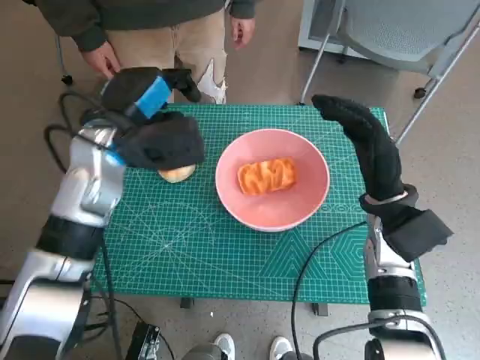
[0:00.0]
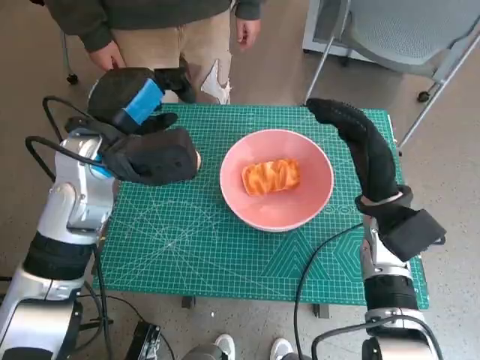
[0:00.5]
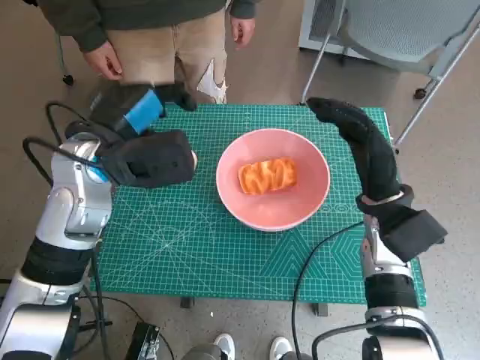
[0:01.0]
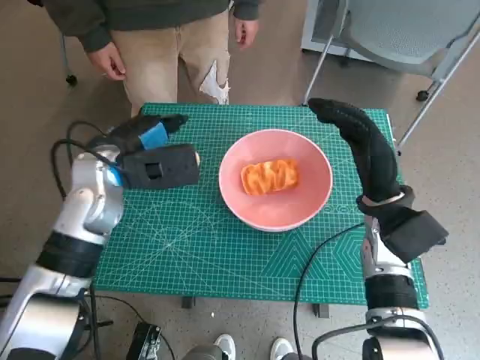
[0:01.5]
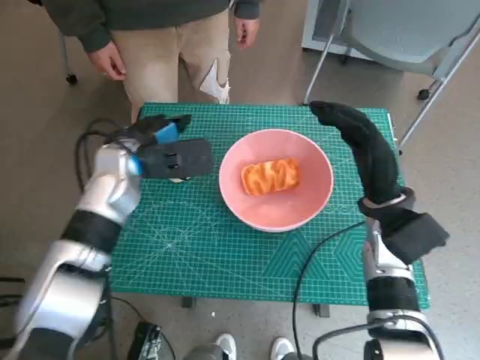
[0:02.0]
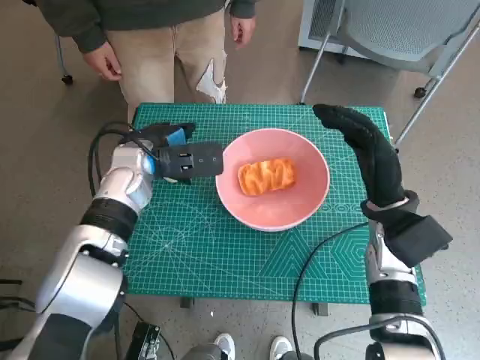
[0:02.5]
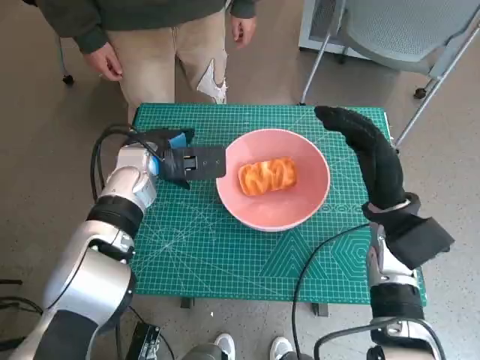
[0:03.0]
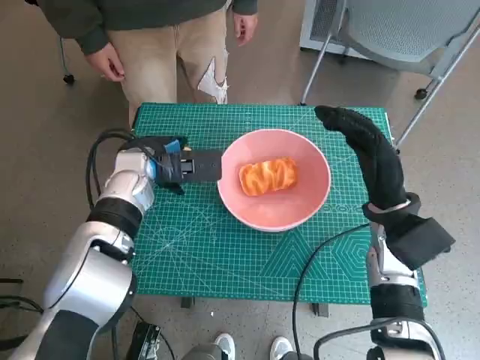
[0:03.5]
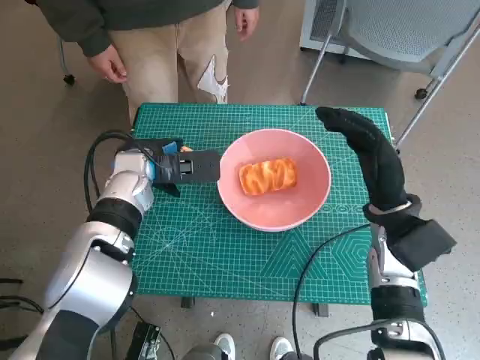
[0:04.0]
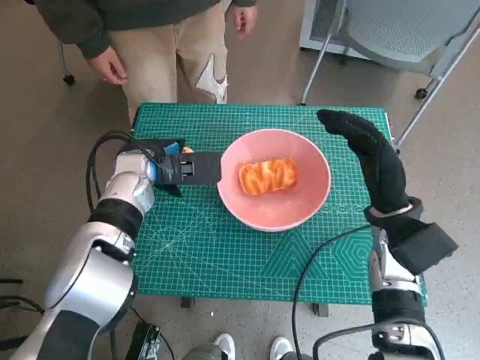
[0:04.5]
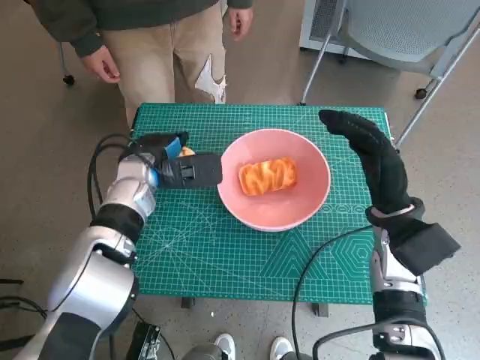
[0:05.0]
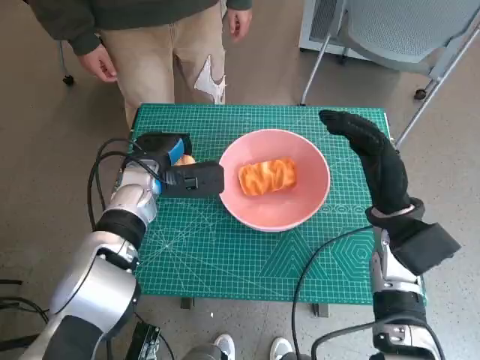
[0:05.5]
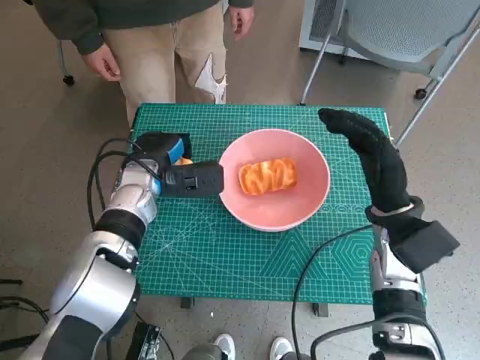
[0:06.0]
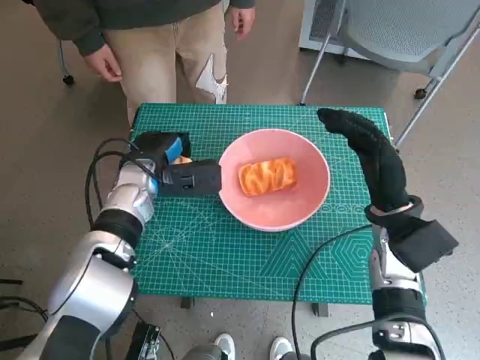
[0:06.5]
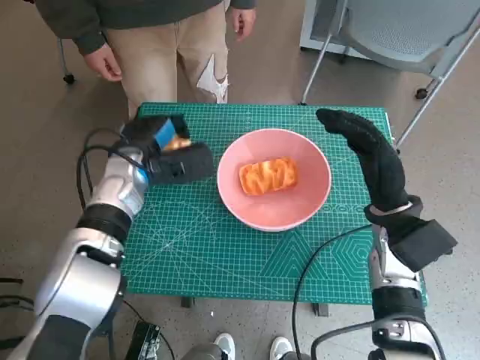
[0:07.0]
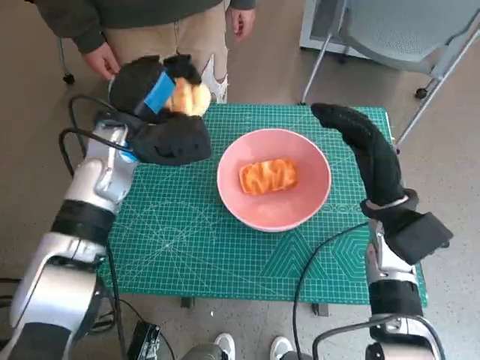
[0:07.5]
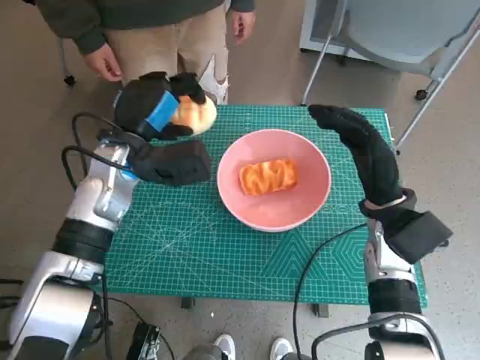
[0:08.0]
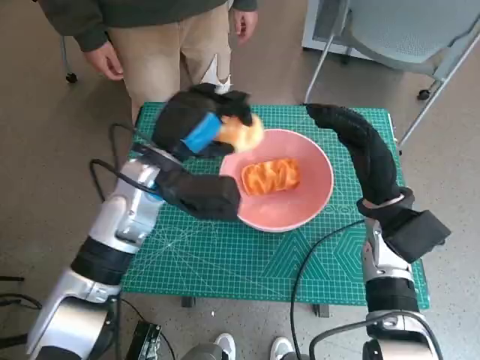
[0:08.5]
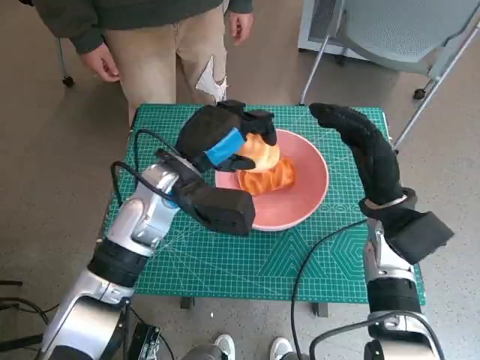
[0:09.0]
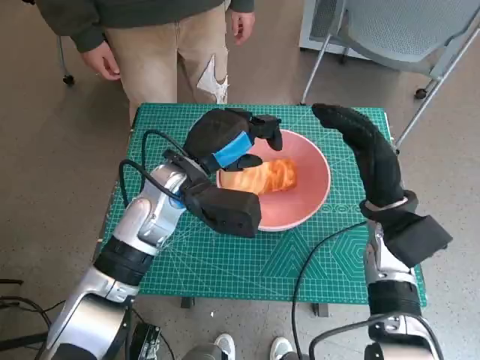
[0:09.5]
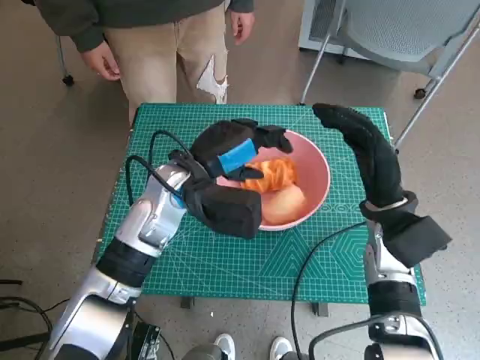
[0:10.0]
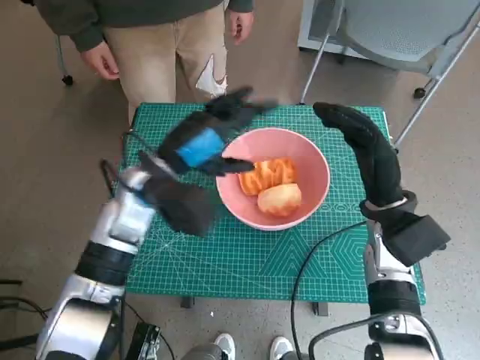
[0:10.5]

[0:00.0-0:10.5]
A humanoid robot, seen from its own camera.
Step, 0:00.0 to 0:05.5: Grasp the round bread with left hand.
Step, 0:06.0 to 0:09.5: Place the round bread in pink bowl with left hand.
0:02.0 to 0:06.5: The hands stay close to where they were, moving slightly.
0:06.5 to 0:08.5: The left hand shifts roughly 5 cm upward.

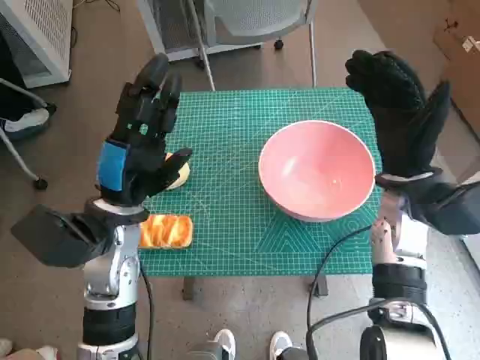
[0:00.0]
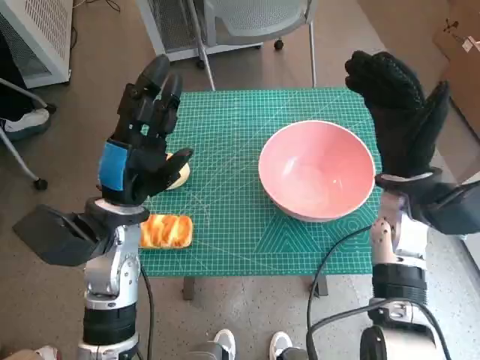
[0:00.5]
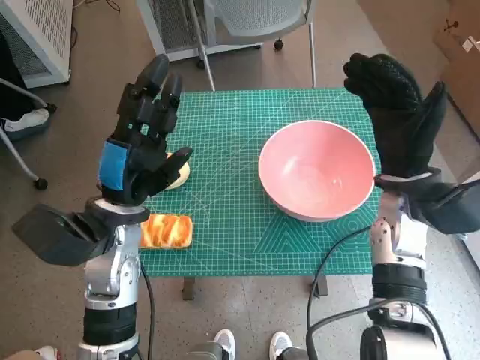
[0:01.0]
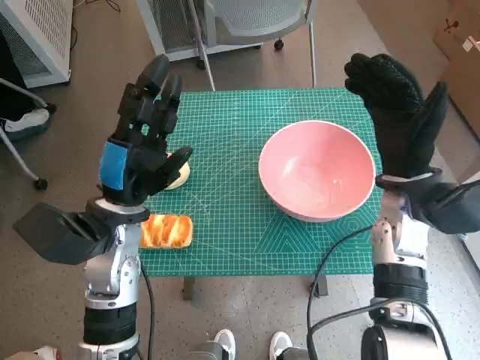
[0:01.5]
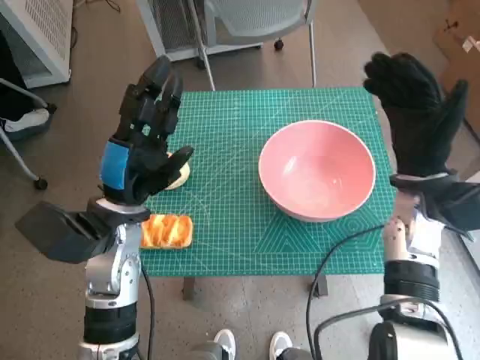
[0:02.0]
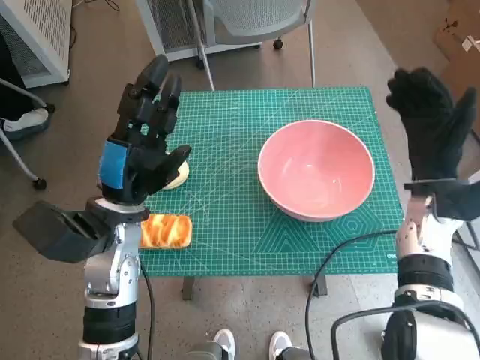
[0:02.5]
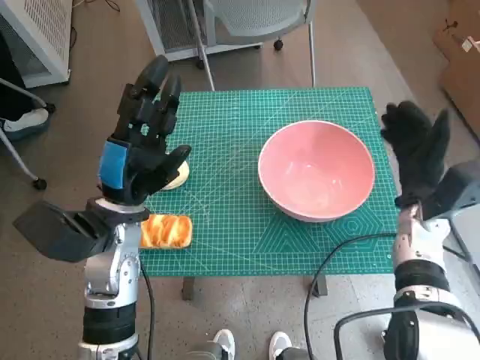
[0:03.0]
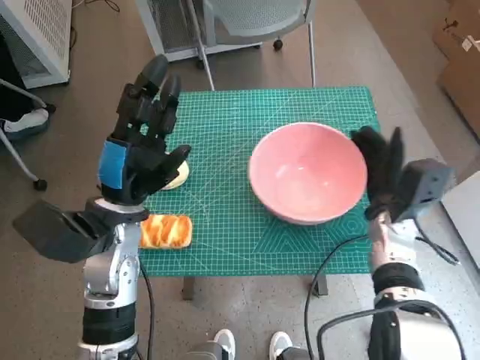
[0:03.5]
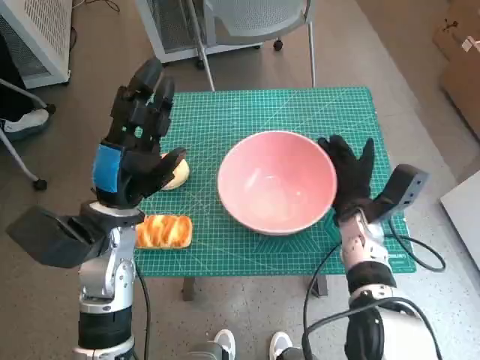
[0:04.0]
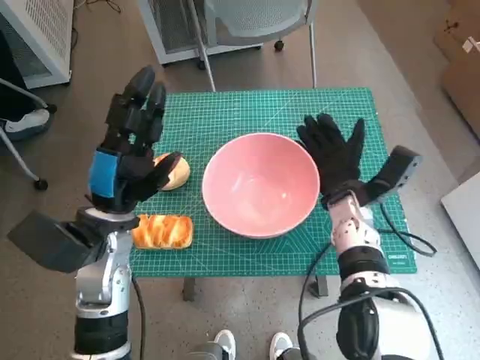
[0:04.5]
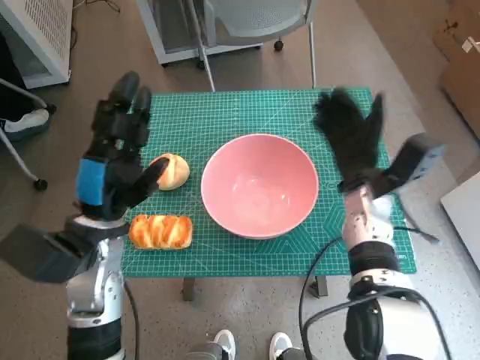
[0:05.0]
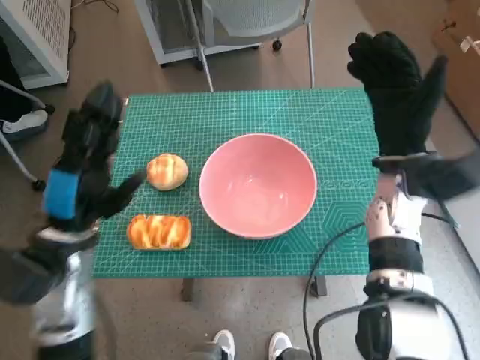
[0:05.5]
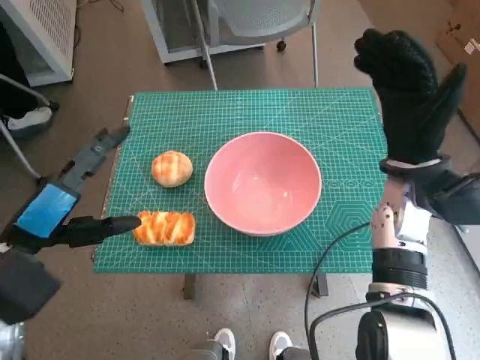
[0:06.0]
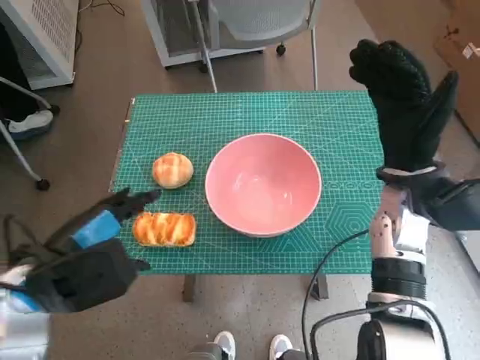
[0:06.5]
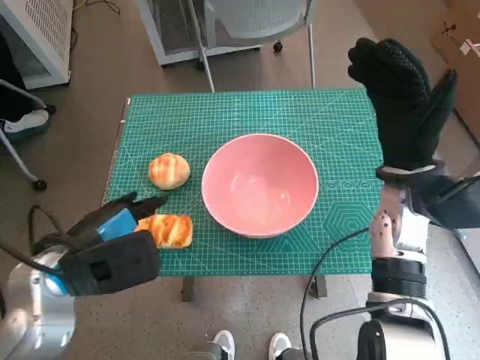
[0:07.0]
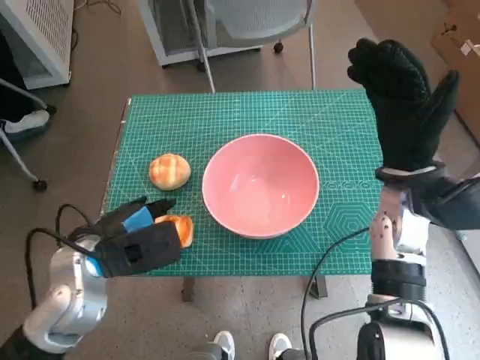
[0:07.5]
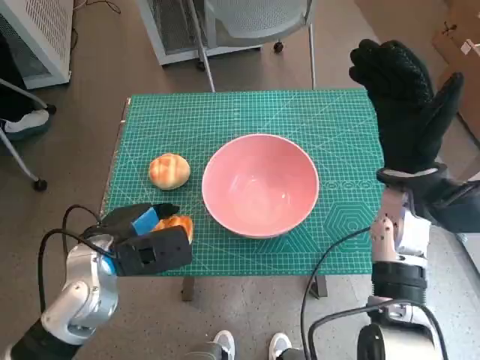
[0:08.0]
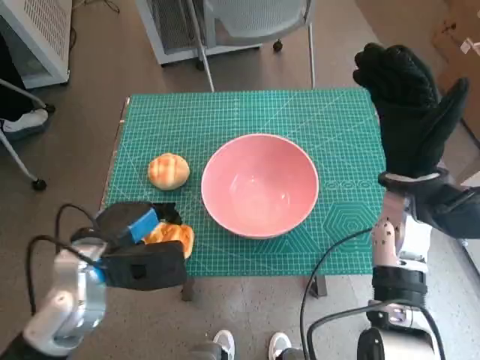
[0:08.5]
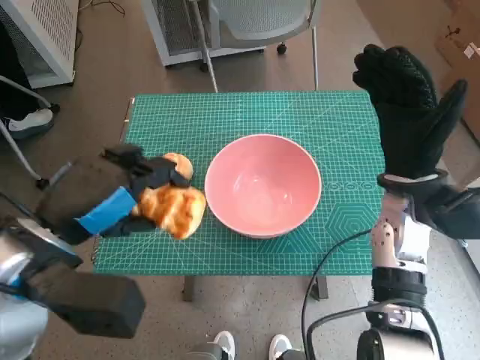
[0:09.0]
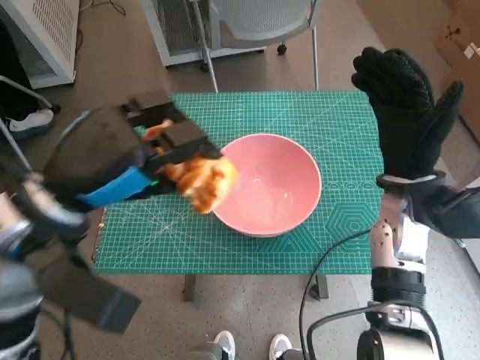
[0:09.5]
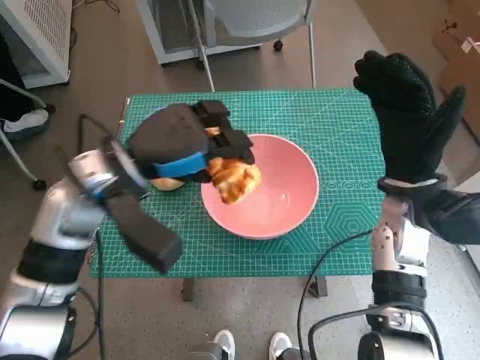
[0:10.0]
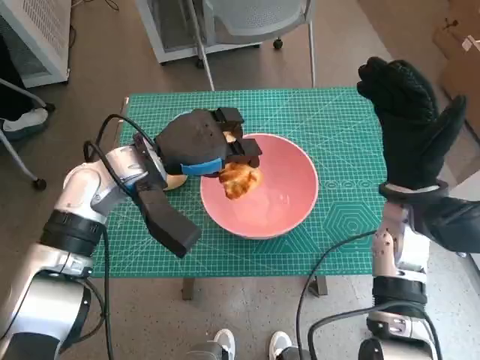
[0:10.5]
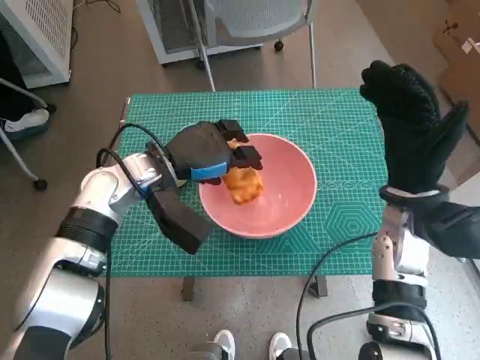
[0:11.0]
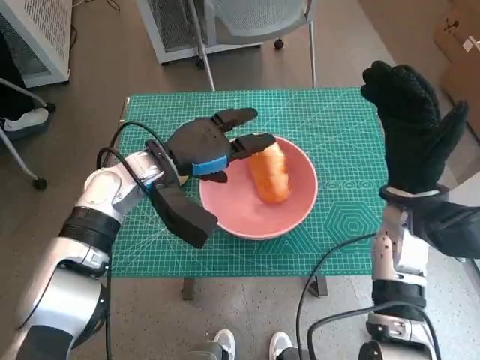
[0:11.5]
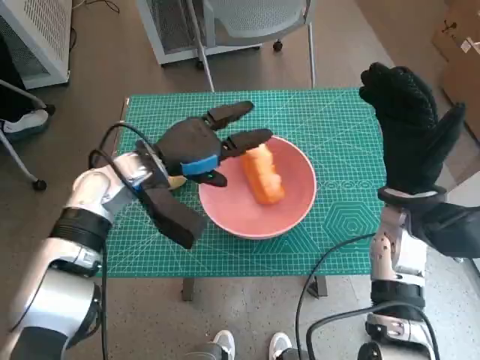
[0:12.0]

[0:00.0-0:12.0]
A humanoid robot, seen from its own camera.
Step, 0:00.0 to 0:04.5: Move the pink bowl to the center of table with right hand.
Step, 0:05.0 to 0:08.0: Grasp the long bread with left hand.
Step, 0:08.5 to 0:11.5: Place the long bread in pink bowl with left hand.
0:02.0 to 0:04.0: The right hand moves downward, roughly 10 cm.
0:04.0 to 0:06.0: The right hand travels upward by approximately 10 cm. Meanwhile the left hand travels backward and to the left by roughly 10 cm.
0:06.0 to 0:08.0: The left hand moves downward and to the right, some 10 cm.
0:08.0 to 0:10.0: The left hand moves upward and forward, approximately 10 cm.
0:10.0 to 0:12.0: The left hand moves downward and forward, some 10 cm.

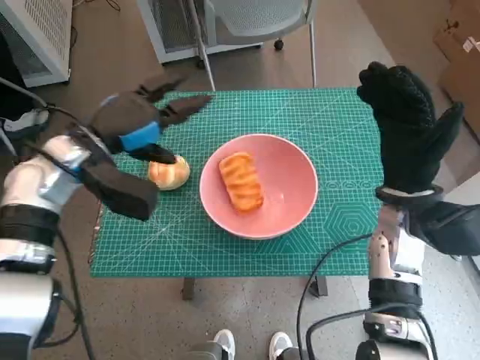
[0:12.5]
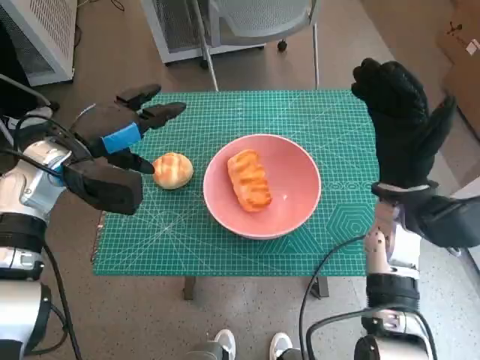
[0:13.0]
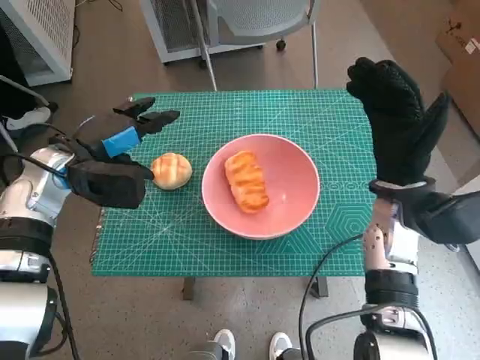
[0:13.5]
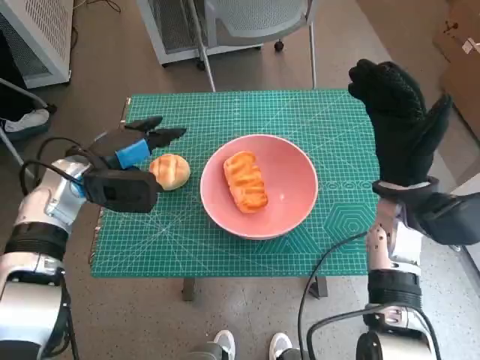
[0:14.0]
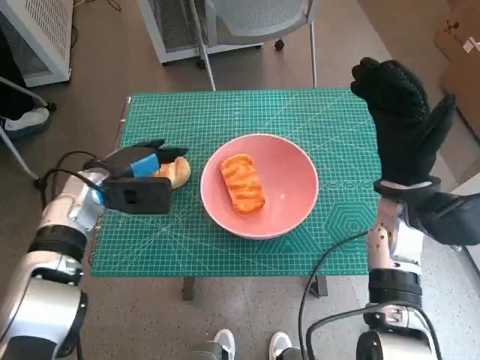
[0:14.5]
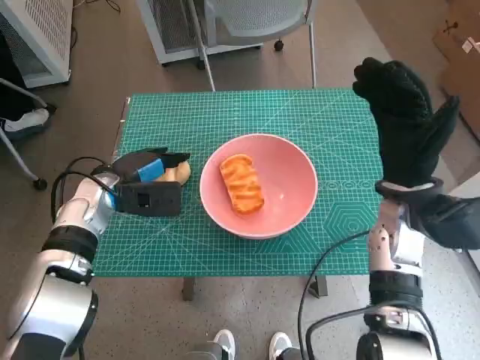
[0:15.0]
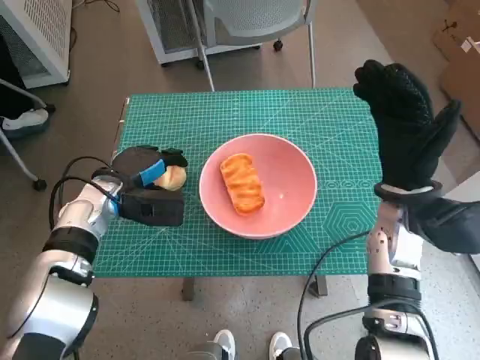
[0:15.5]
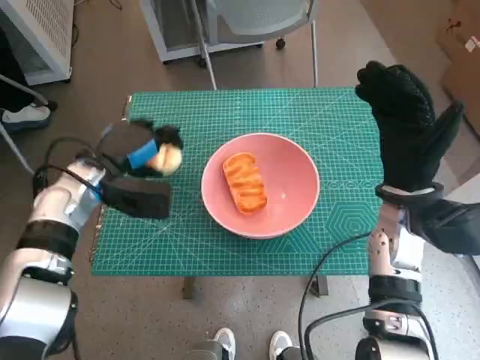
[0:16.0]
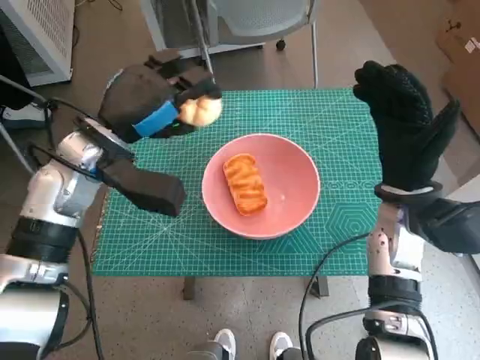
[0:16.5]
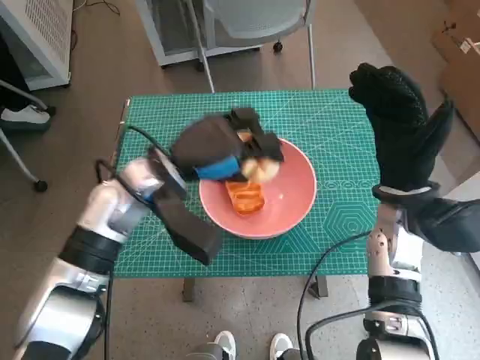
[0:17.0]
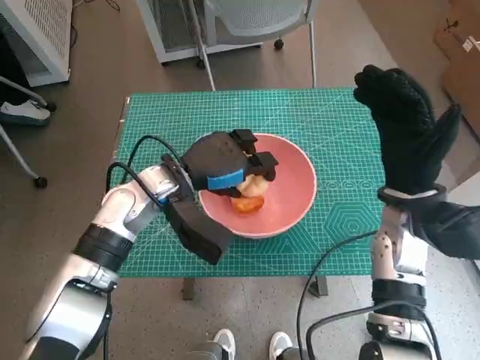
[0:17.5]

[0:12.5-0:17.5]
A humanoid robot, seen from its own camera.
Step, 0:12.5 to 0:15.5: Grasp the round bread with left hand.
0:12.5 to 0:15.0: The left hand is displaced downward by some 10 cm.
0:15.0 to 0:17.5: The left hand shifts about 10 cm to the right.
